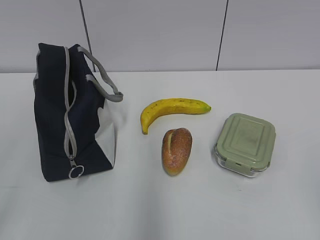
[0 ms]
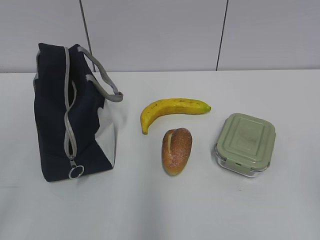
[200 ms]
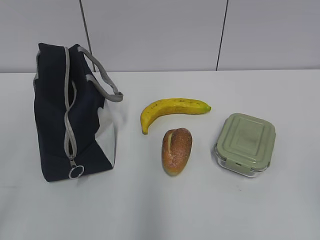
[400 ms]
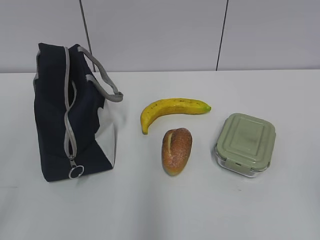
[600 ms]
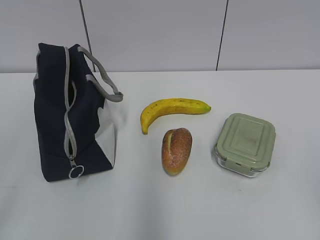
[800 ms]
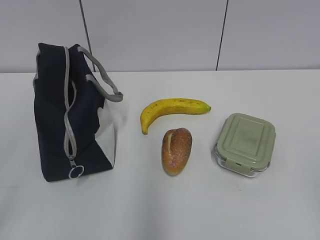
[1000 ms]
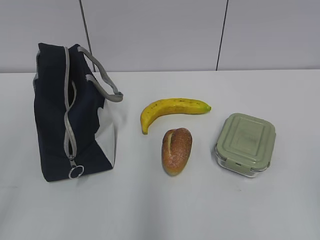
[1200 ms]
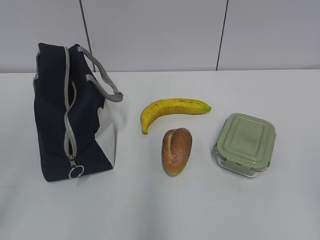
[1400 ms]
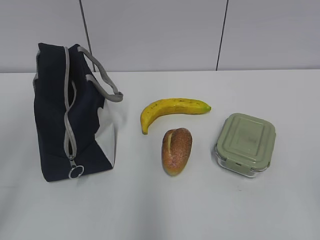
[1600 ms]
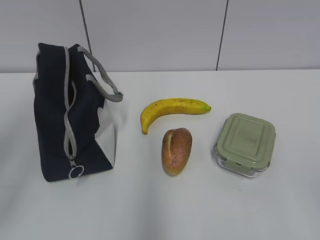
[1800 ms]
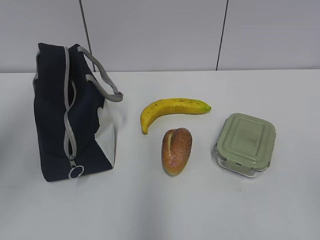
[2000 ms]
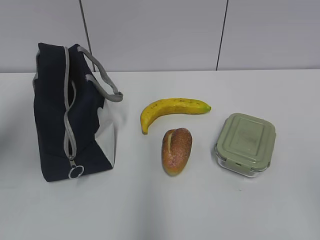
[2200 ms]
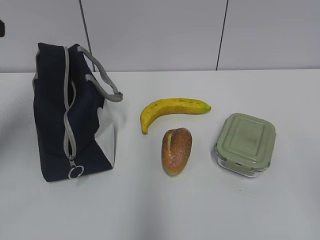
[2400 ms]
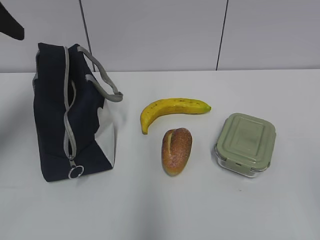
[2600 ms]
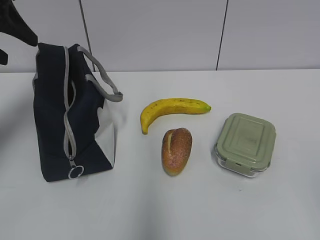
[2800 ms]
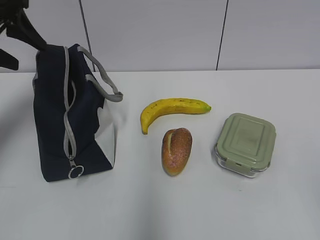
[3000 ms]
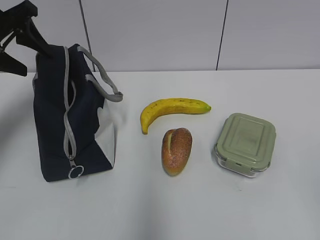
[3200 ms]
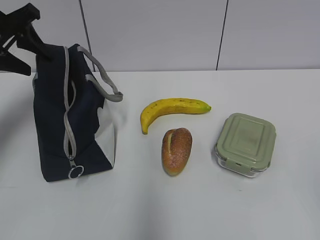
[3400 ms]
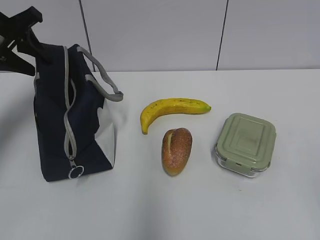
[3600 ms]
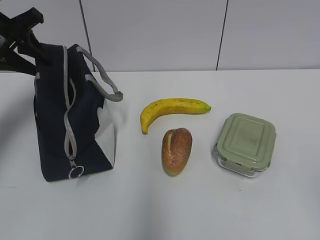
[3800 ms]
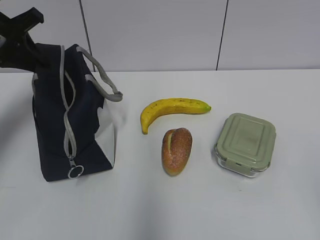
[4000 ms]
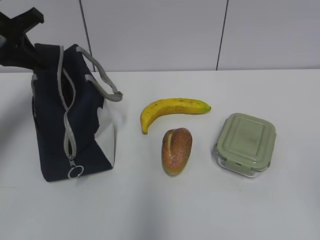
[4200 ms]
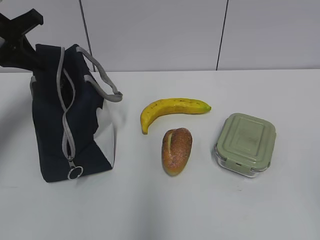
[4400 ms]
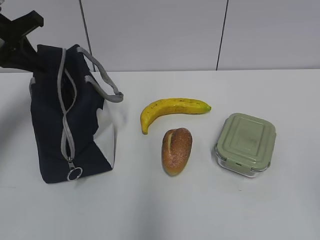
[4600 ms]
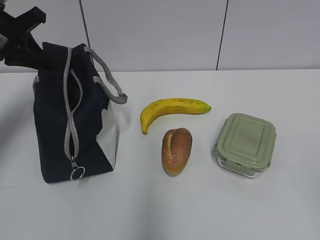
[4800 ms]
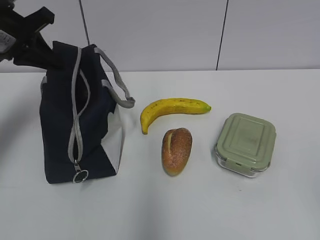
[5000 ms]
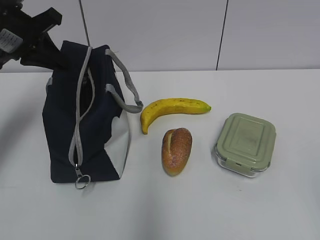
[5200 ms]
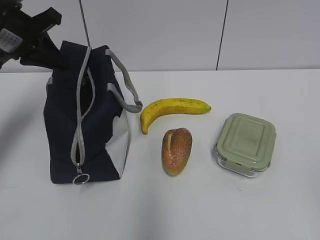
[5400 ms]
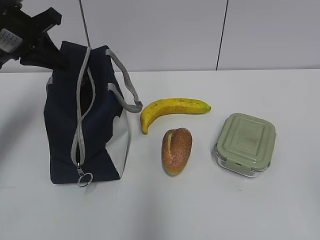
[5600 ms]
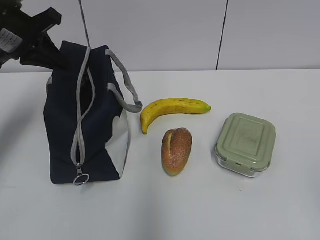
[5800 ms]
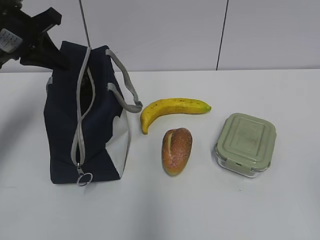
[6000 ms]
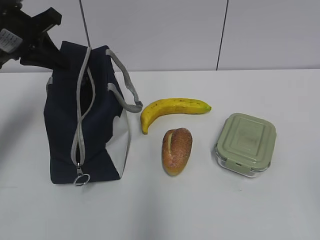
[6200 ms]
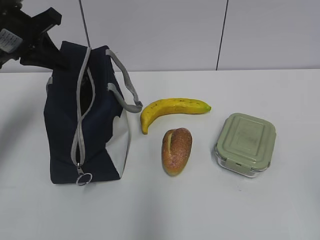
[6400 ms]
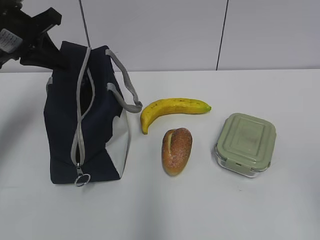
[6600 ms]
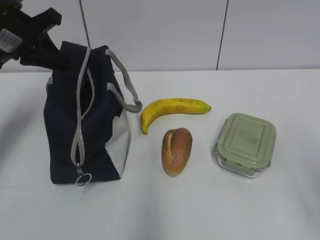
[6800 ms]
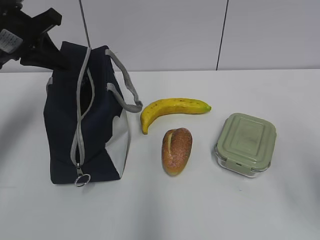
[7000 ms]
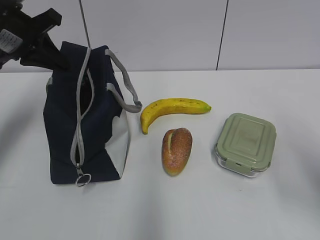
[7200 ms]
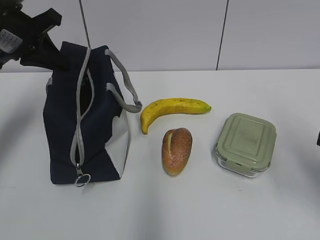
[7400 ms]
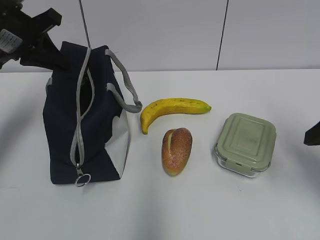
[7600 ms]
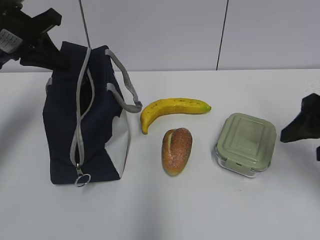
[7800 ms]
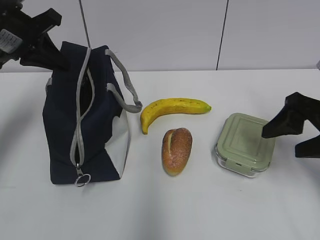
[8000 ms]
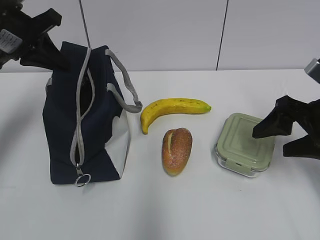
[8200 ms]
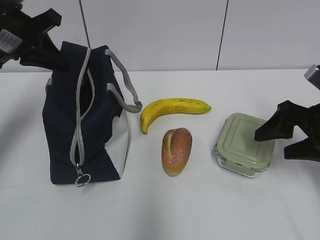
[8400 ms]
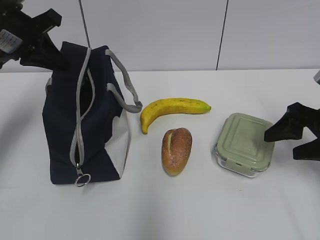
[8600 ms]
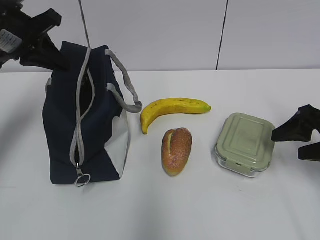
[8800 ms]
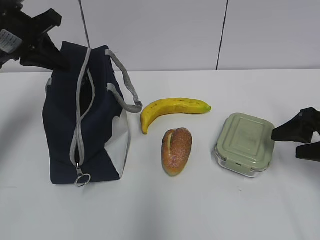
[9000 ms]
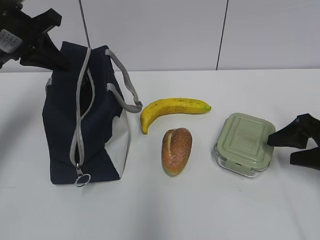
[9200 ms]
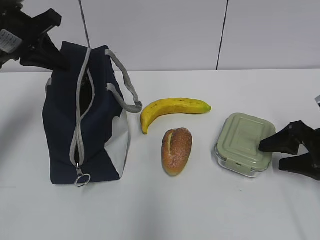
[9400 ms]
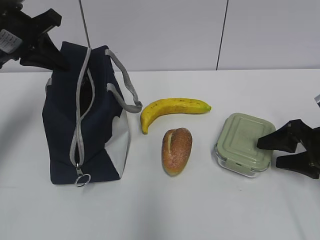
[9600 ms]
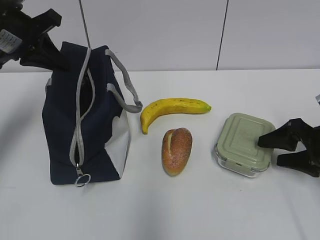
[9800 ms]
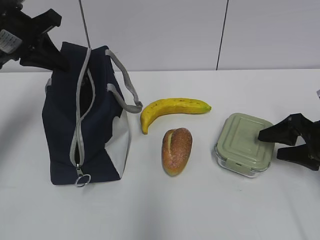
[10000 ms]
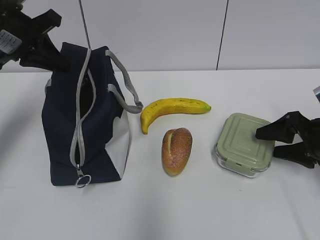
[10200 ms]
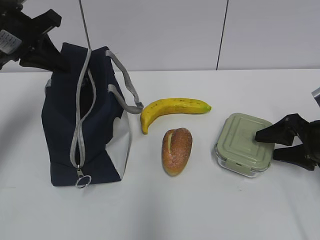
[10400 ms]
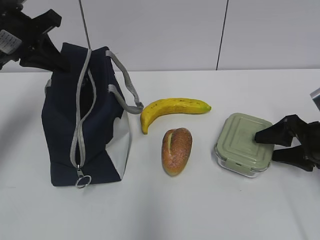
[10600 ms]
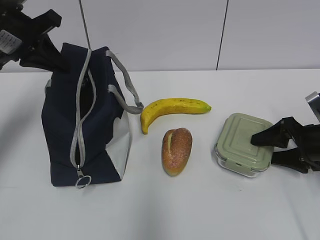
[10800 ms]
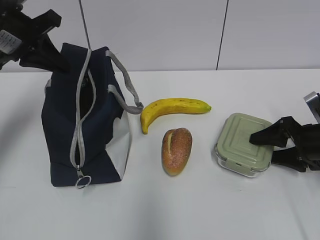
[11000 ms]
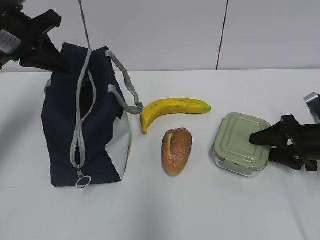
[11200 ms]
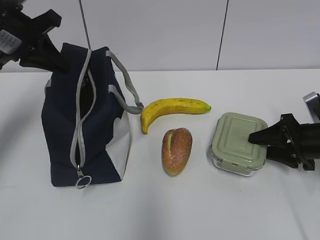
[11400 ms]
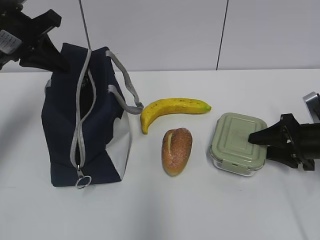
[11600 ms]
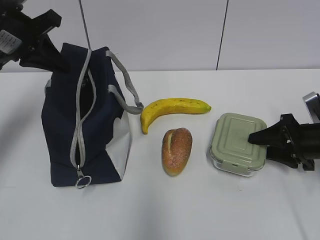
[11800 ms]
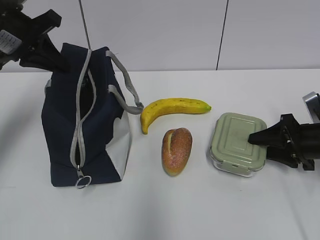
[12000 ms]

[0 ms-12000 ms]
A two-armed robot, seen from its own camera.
1600 ms to 3000 ms: The left gripper goes some 30 cm forward.
3000 ms to 4400 ms: The left gripper closes.
4400 ms to 6000 ms: The grippers stay close to where they were, moving slightly.
6000 ms to 7600 ms: The right gripper shifts some 20 cm forward.
7600 ms to 9000 ms: The right gripper travels downward and forward by some 10 cm.
9000 ms to 10400 ms: The right gripper changes place by about 5 cm.
10400 ms to 12000 ms: The right gripper closes its fingers.

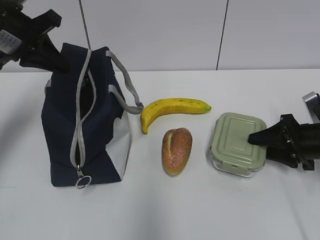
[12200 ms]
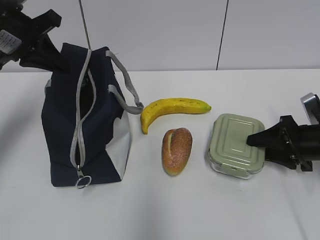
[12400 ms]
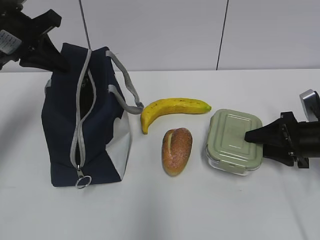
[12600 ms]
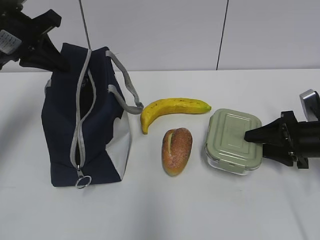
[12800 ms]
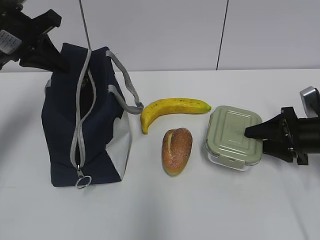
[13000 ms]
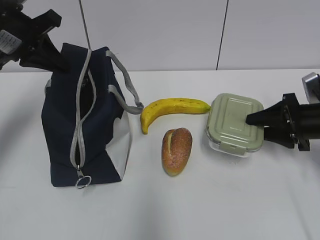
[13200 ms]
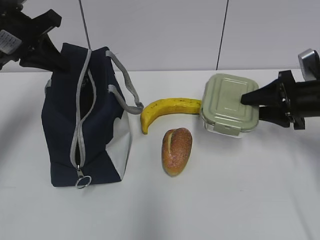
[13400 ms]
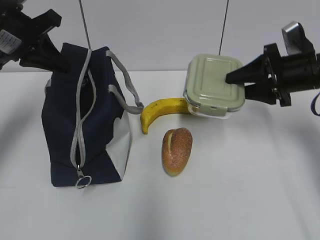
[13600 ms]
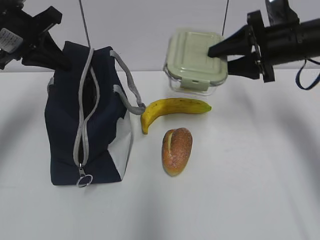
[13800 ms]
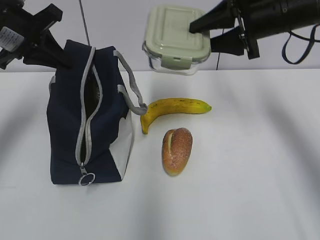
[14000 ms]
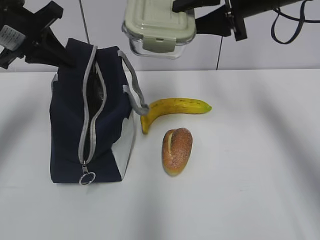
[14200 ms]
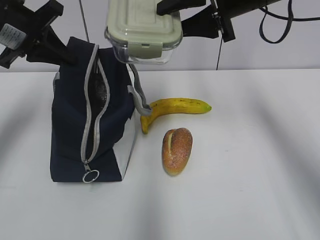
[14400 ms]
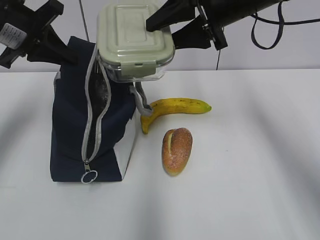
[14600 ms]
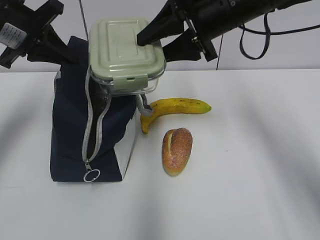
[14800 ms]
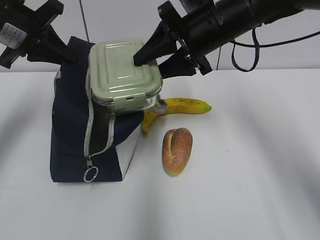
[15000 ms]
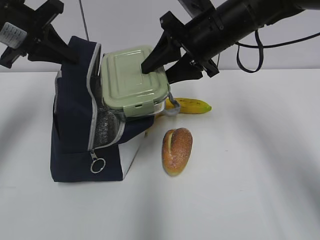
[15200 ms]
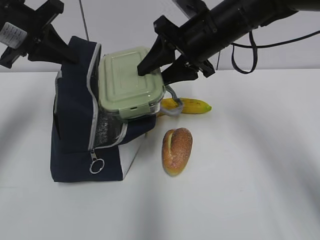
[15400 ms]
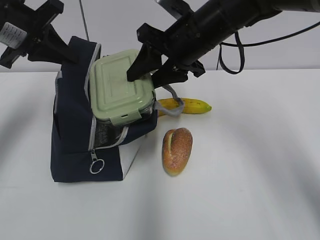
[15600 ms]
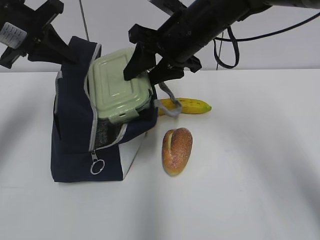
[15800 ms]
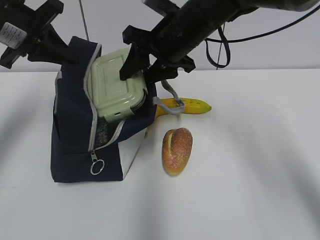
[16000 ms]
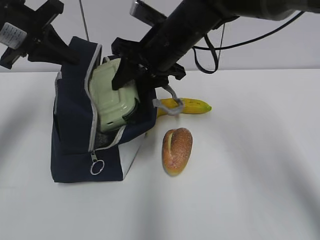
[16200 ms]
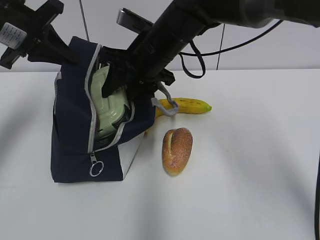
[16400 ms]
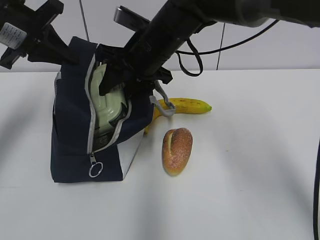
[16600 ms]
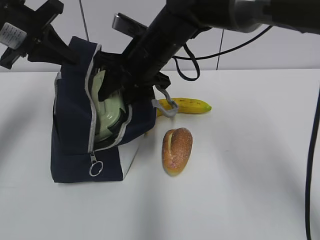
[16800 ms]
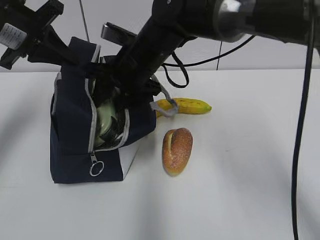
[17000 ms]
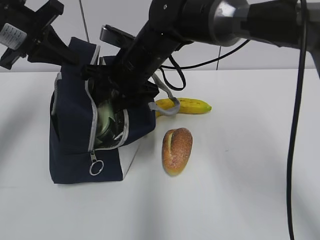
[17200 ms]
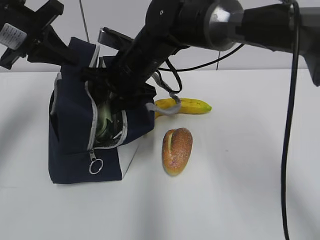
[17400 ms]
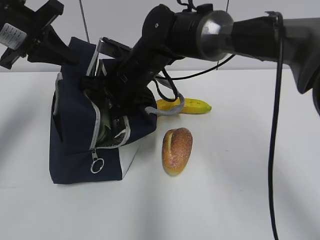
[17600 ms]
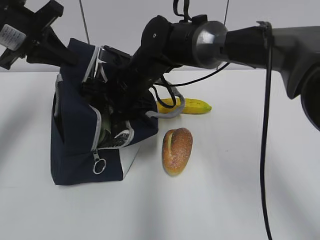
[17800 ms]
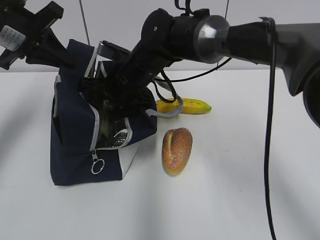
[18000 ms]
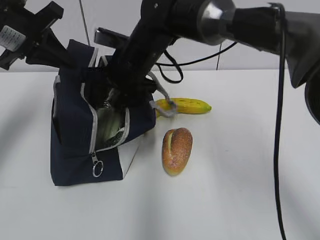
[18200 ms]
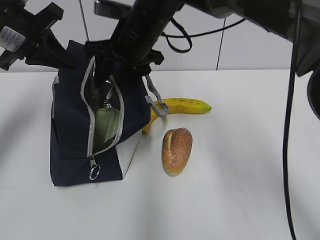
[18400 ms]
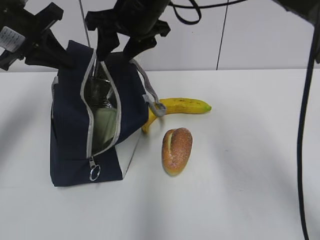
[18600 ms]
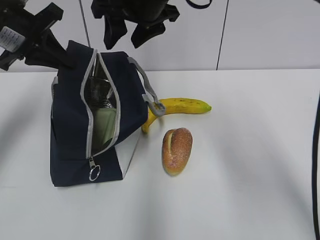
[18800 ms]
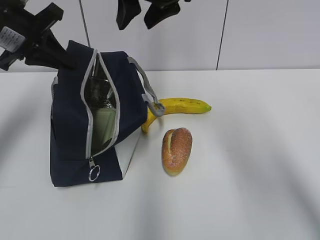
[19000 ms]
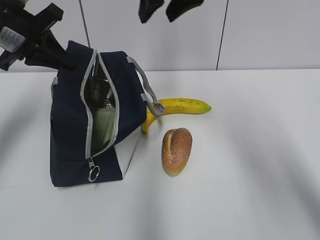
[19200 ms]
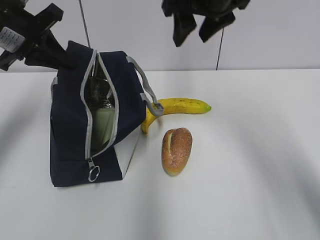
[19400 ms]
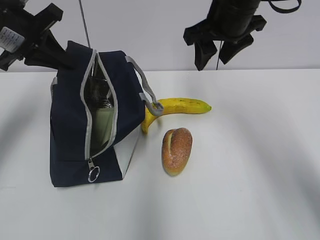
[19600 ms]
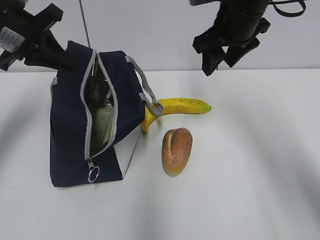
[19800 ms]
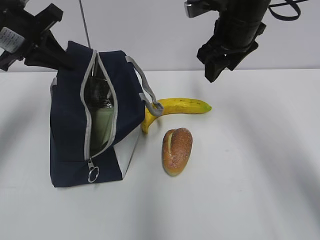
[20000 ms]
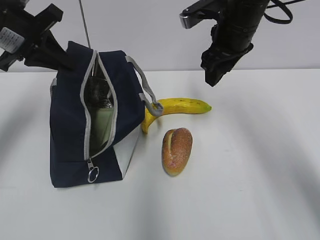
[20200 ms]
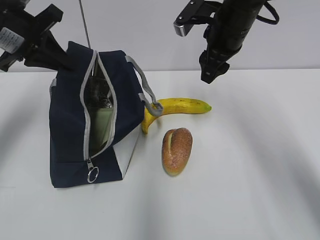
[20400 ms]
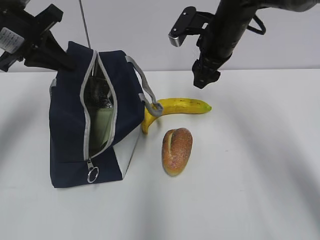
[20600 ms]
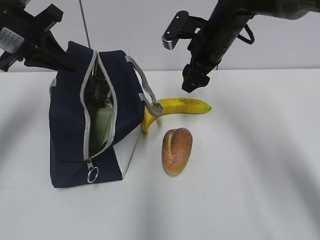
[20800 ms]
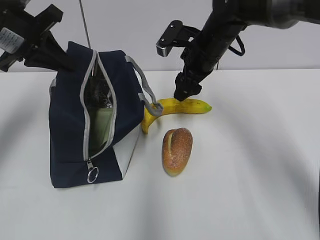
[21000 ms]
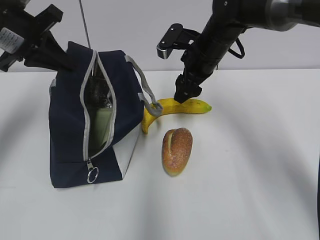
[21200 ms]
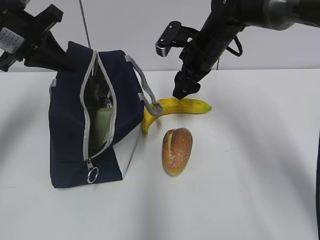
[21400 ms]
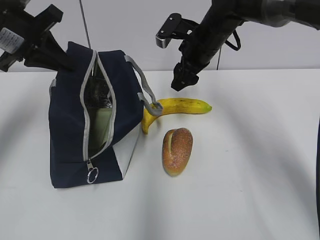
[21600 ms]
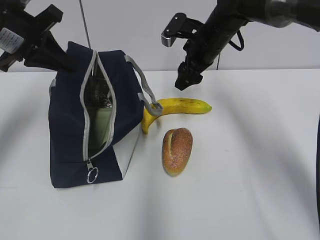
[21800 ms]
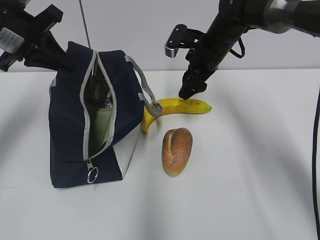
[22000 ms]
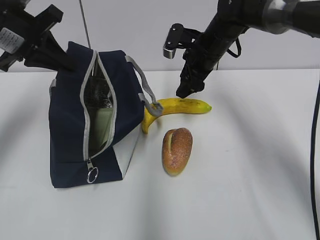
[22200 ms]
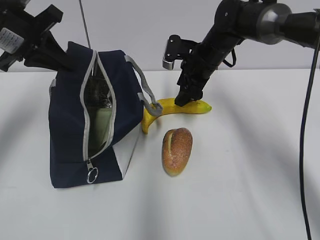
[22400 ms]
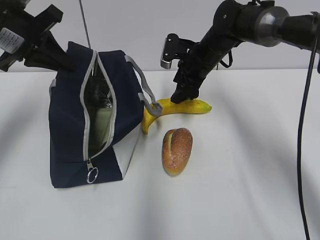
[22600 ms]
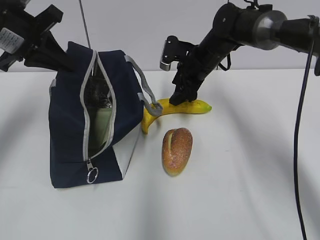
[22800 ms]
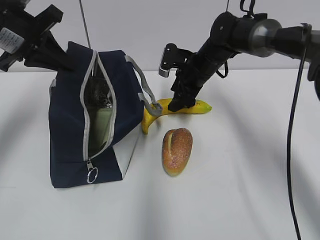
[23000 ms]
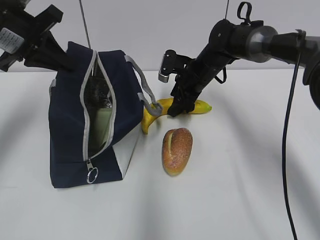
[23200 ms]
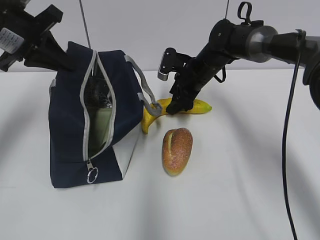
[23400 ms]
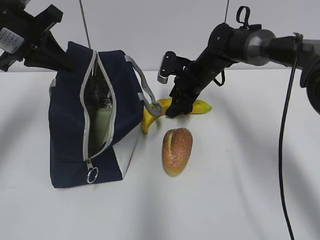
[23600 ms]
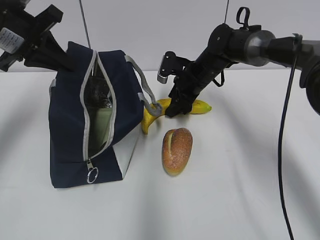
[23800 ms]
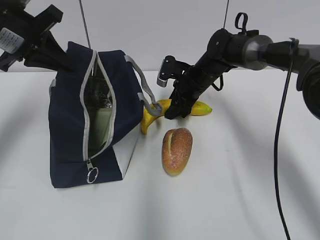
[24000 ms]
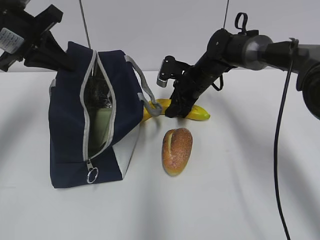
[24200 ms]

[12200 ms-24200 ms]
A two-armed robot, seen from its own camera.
12200 ms to 13800 ms: The right gripper travels upward, to the left and forward by approximately 20 cm.
13800 ms to 15200 ms: The right gripper goes approximately 10 cm to the left.
15200 ms to 16600 ms: The right gripper goes about 10 cm to the left.
18200 ms to 19800 ms: The right gripper moves to the right and upward, roughly 20 cm.
19800 ms to 21200 ms: The right gripper heads downward, covering approximately 10 cm.
21200 ms to 22600 ms: The right gripper changes place by about 5 cm.
22600 ms to 24200 ms: The right gripper is displaced downward by some 5 cm, and closes.
